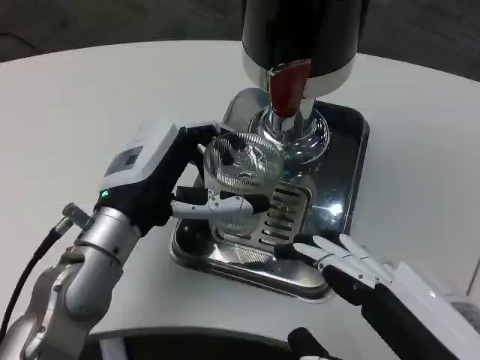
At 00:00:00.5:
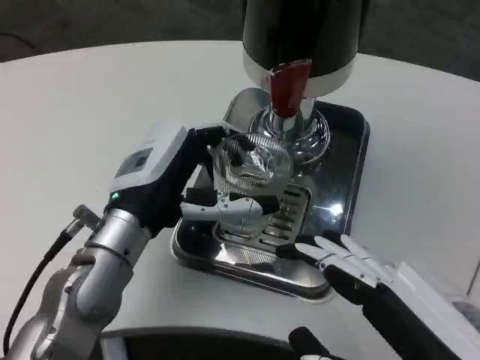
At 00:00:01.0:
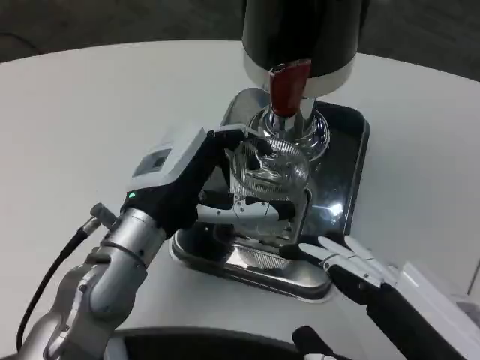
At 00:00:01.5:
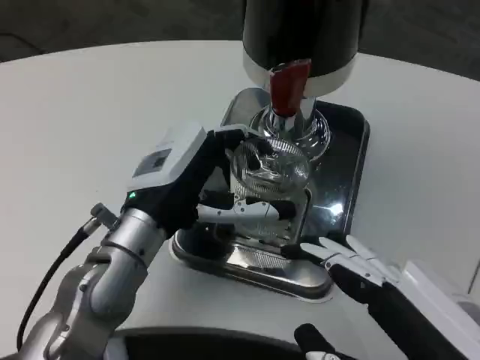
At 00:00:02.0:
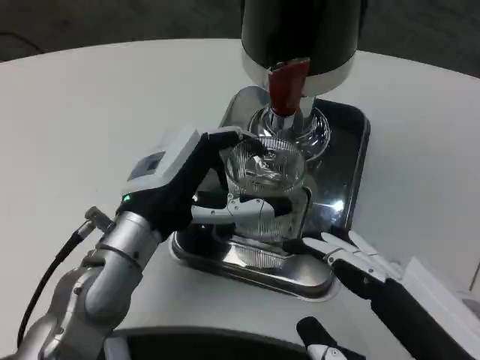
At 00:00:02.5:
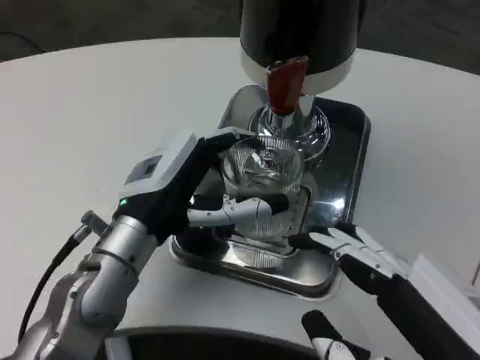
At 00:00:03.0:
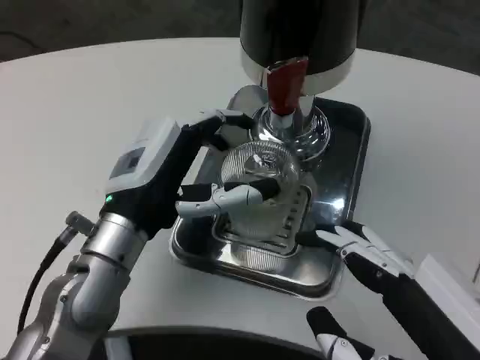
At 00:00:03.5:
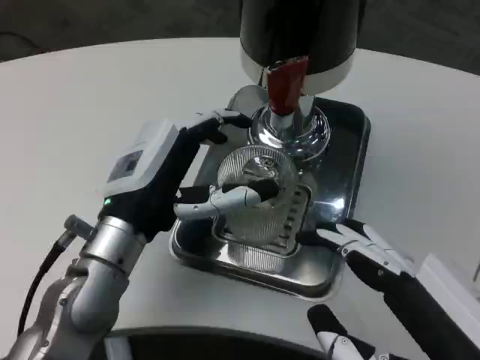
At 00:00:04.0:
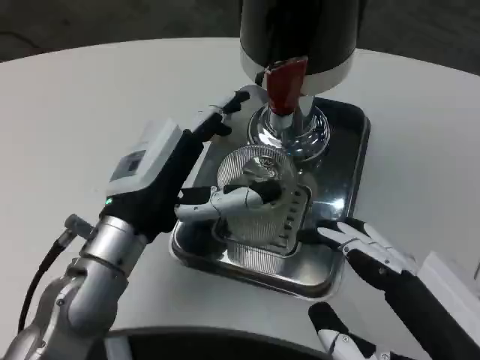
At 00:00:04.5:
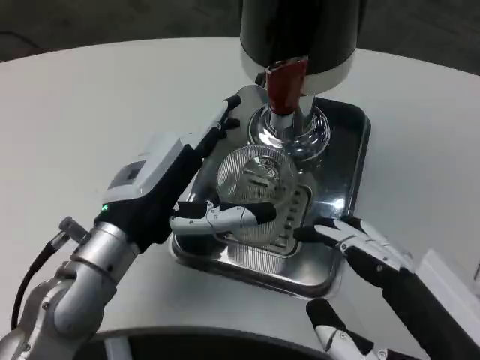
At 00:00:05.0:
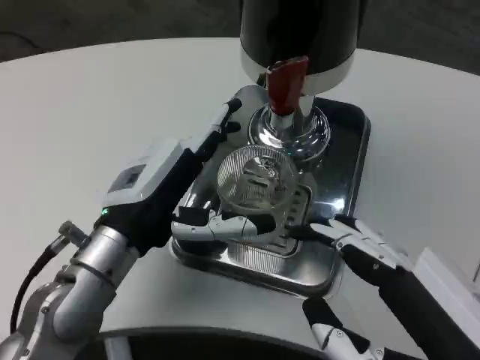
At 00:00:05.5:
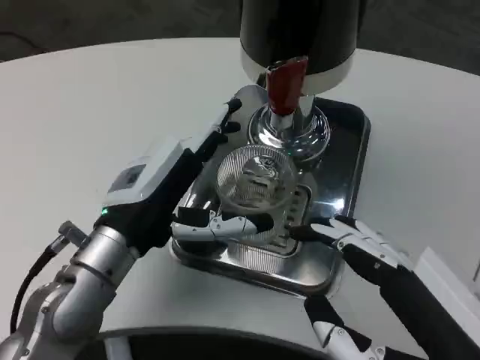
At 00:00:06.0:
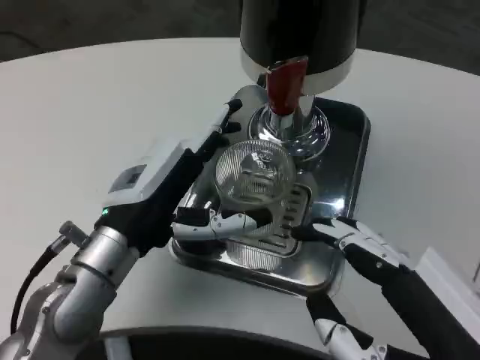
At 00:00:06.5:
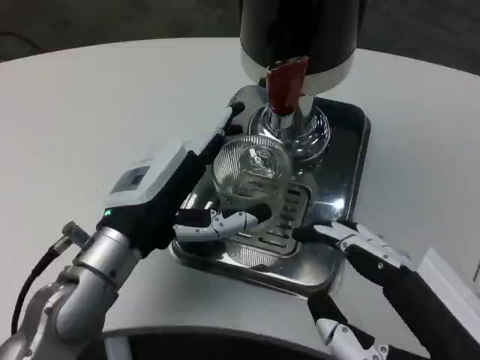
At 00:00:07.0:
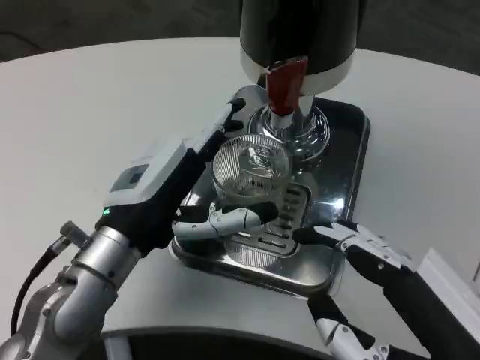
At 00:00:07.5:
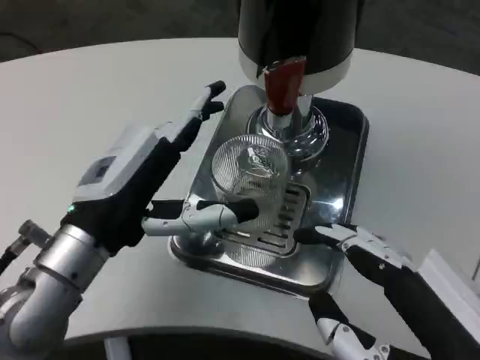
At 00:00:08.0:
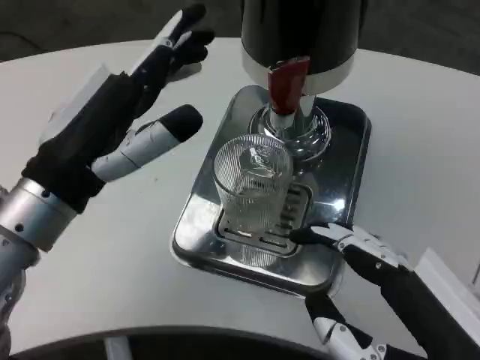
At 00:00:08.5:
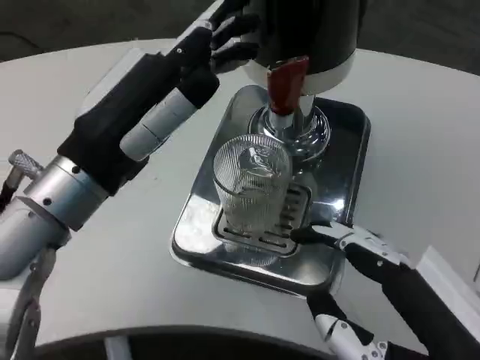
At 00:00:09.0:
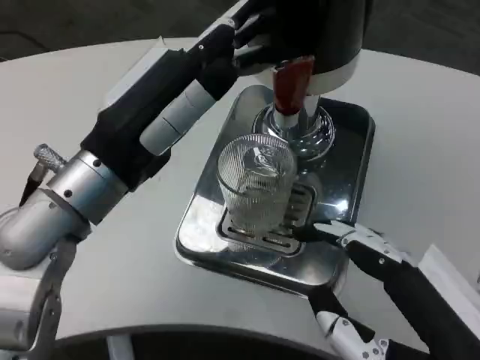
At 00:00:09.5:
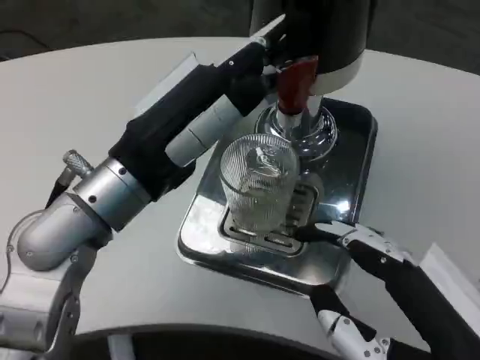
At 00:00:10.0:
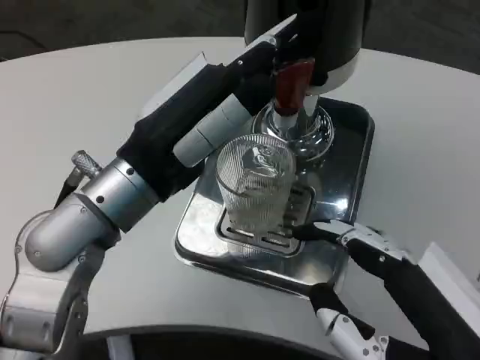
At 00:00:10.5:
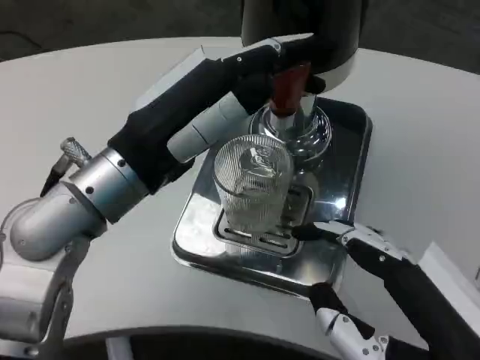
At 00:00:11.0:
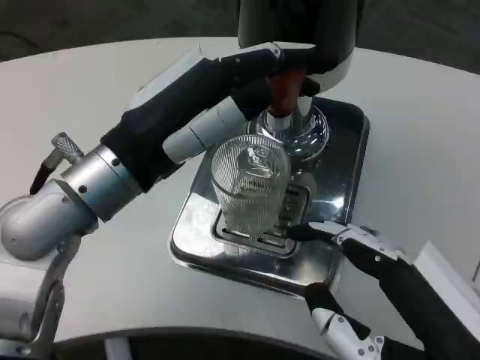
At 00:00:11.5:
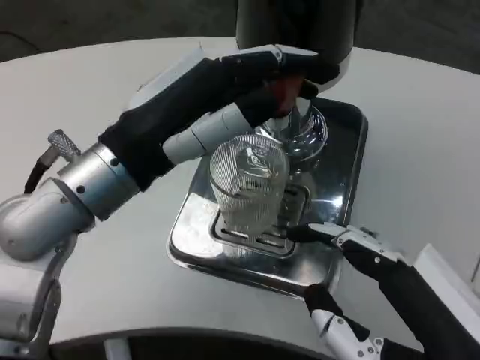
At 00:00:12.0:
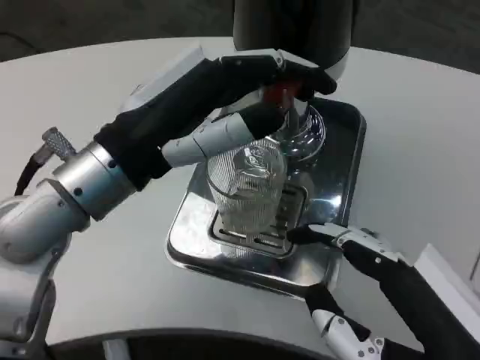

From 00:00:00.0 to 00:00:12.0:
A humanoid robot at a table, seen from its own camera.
Task of the whole recording: Grasp the cup under the faucet to collect the drink, then remove the cup.
From 00:00:04.0 to 00:00:06.0: The hands make only small movements.
From 00:00:06.0 to 00:00:08.0: The left hand goes some 5 cm upward.
From 00:00:08.0 to 00:00:10.0: The left hand travels to the right by some 5 cm.

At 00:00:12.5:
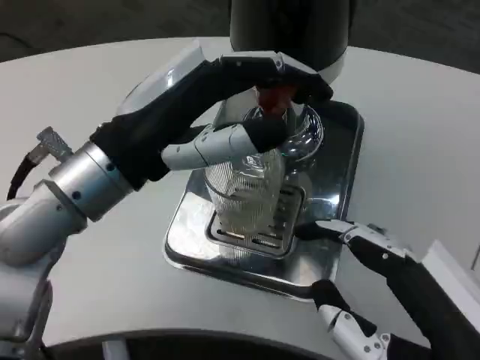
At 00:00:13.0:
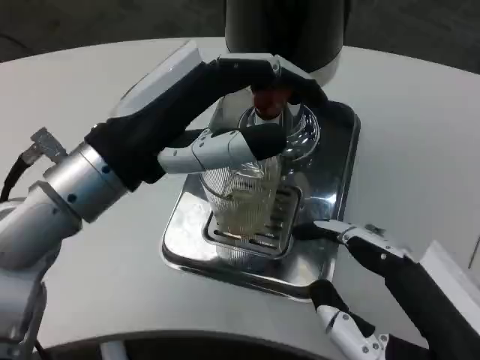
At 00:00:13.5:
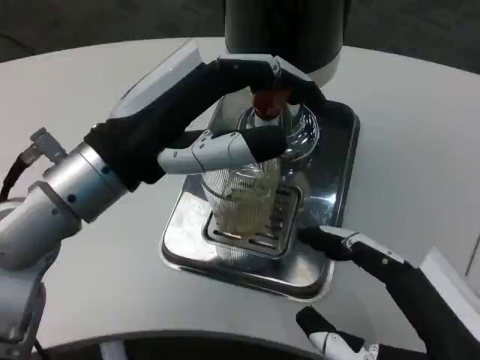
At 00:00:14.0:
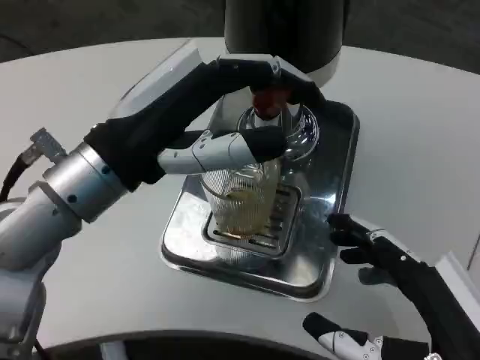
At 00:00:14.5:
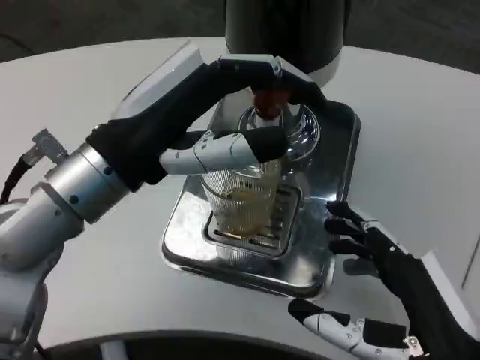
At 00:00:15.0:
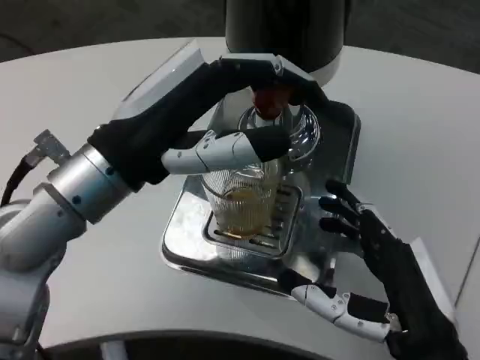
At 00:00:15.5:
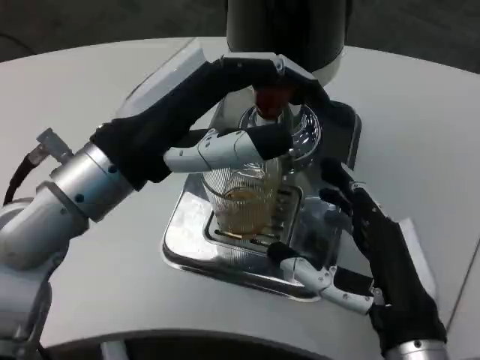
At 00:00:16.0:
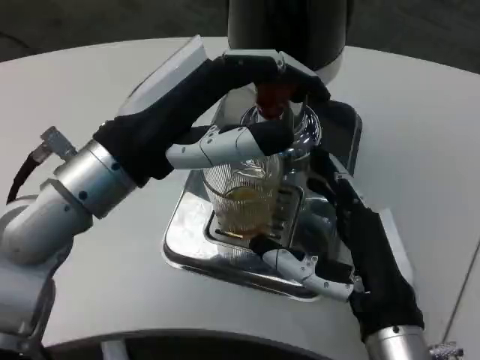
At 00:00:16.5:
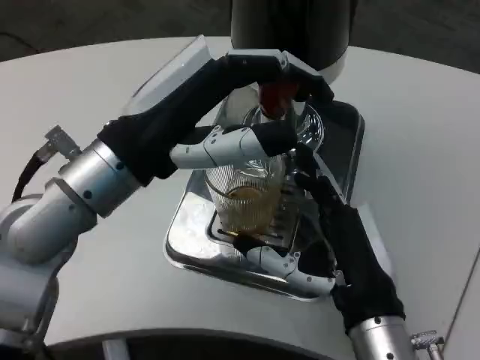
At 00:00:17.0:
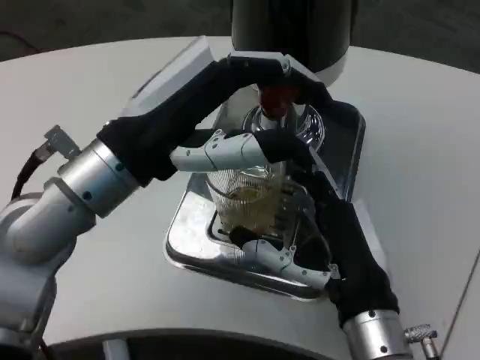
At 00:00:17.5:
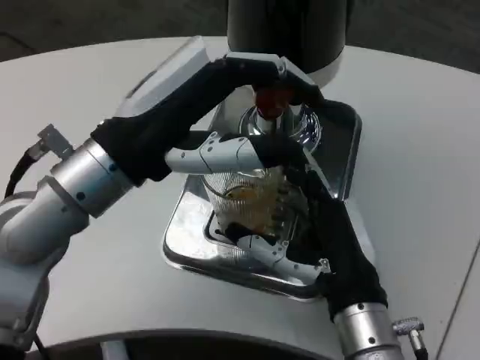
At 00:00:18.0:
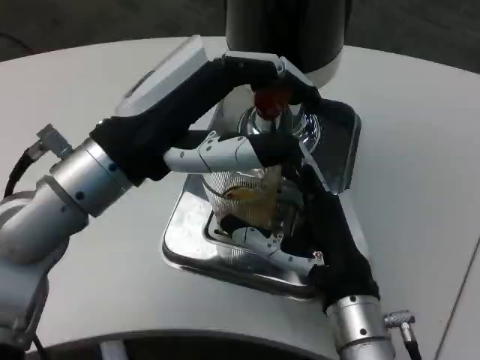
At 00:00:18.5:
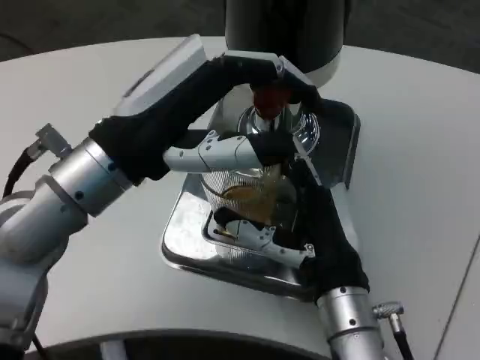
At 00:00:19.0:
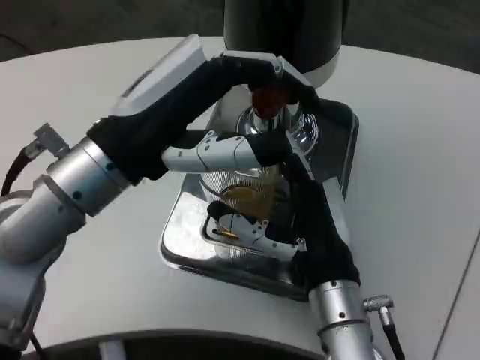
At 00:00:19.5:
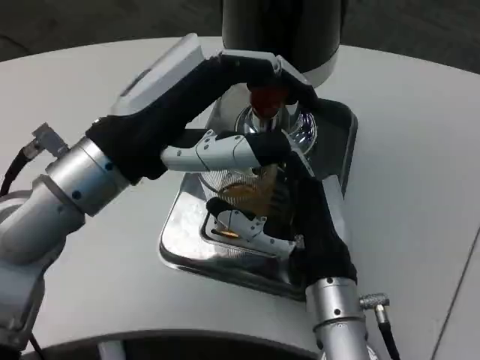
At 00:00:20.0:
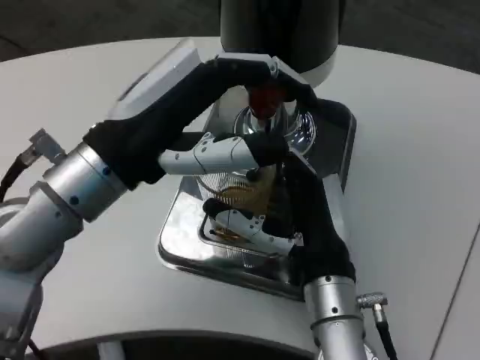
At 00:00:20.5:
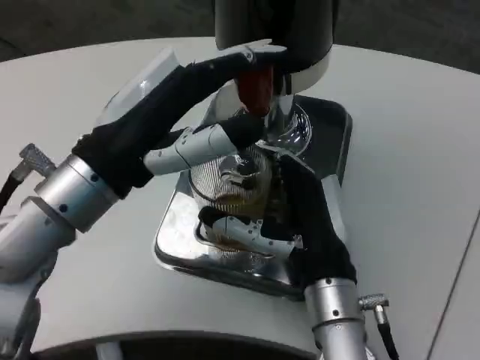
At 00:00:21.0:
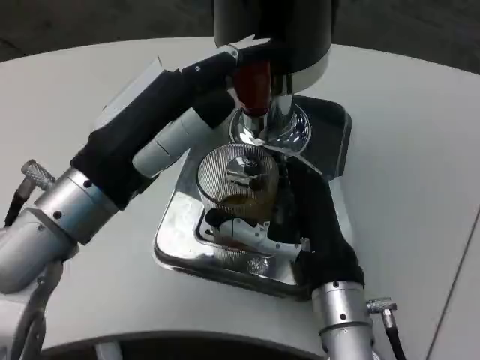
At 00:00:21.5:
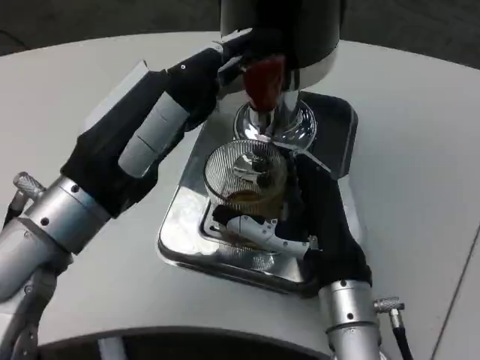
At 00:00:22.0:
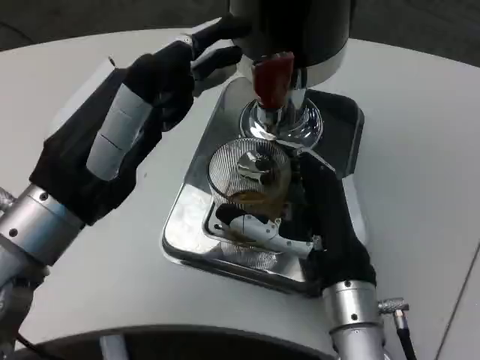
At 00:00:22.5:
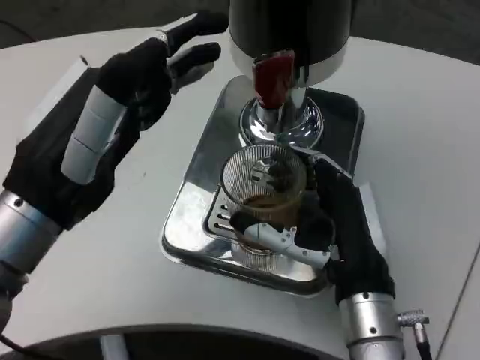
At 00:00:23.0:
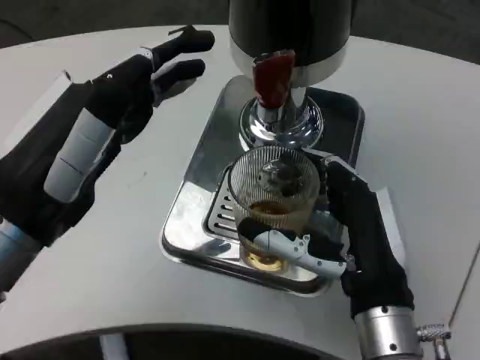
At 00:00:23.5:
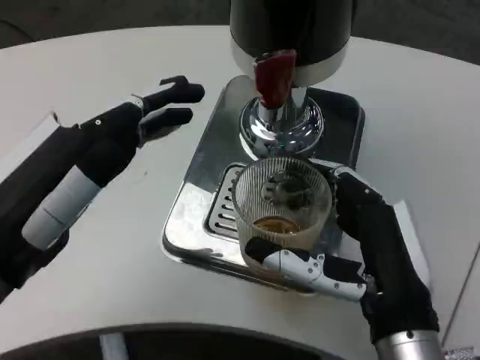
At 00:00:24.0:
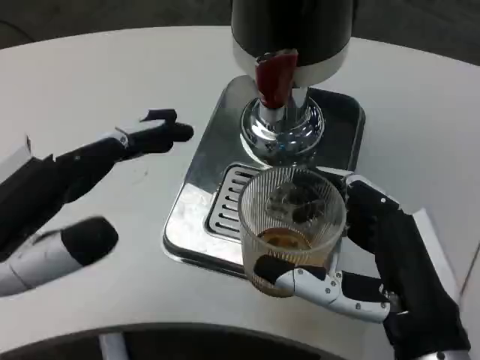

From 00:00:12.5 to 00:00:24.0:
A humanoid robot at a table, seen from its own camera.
Task of the whole recording: Grasp the cup under the faucet to collect the drink, then remove the cup.
From 00:00:12.5 to 00:00:14.5: The right hand travels downward by approximately 5 cm.
From 00:00:14.5 to 00:00:16.5: The right hand moves forward and to the left, about 10 cm.
From 00:00:18.5 to 00:00:20.0: The hands move only a little.
From 00:00:22.0 to 00:00:24.0: The left hand moves backward and to the left, some 10 cm. Meanwhile the right hand travels backward by about 10 cm.

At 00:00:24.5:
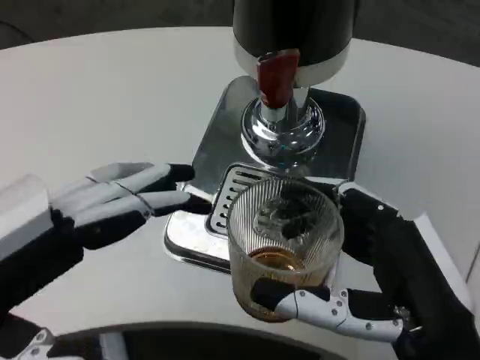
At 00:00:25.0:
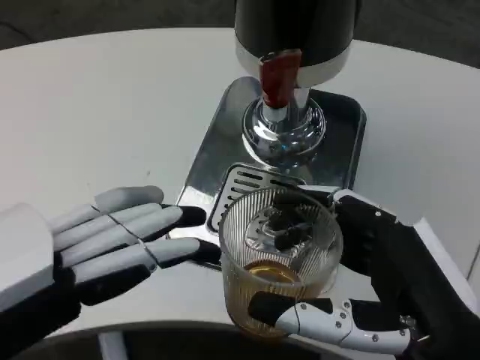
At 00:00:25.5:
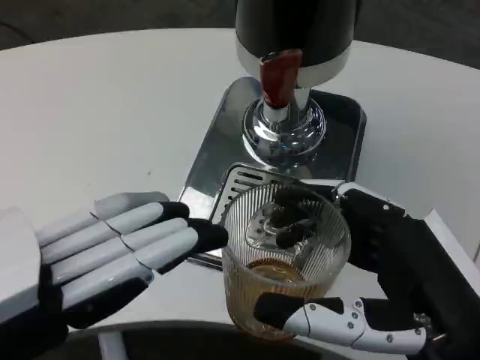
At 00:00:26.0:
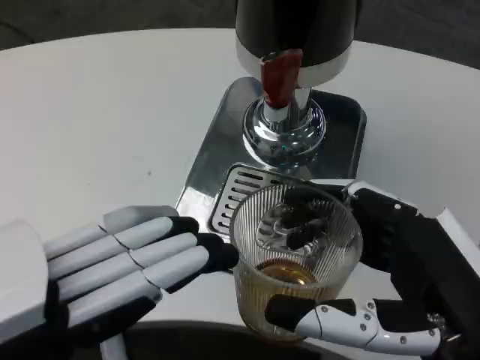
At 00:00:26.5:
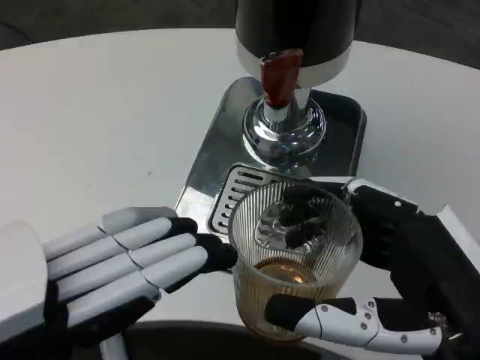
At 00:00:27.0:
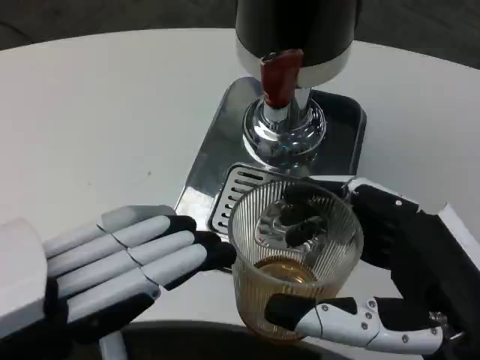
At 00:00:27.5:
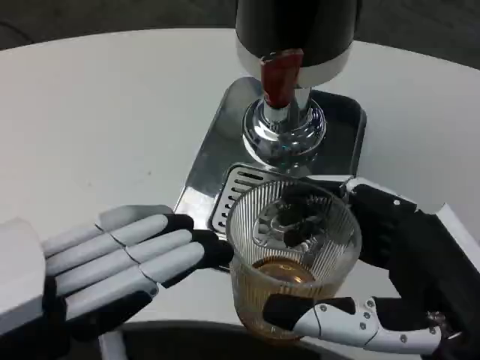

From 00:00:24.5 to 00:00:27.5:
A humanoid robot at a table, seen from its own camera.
Task of the whole recording: Grasp the cup under the faucet to collect the drink, then remove the cup.
From 00:00:26.0 to 00:00:27.5: The two hands keep their place.
